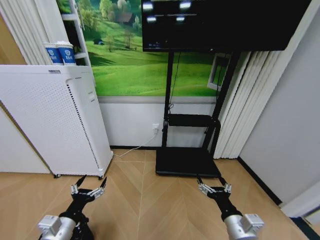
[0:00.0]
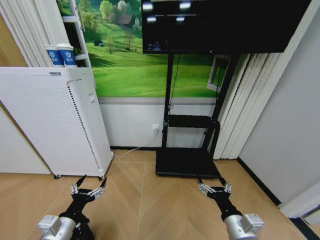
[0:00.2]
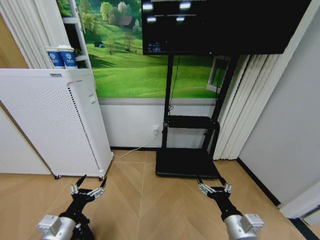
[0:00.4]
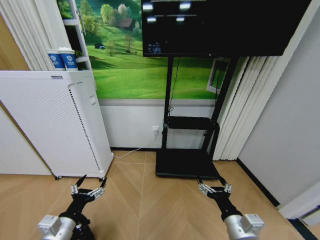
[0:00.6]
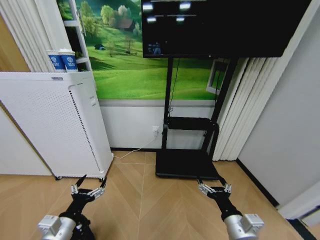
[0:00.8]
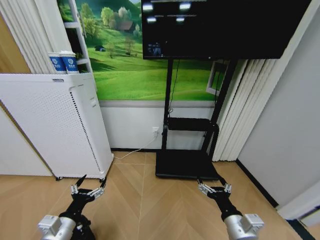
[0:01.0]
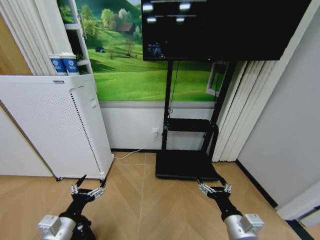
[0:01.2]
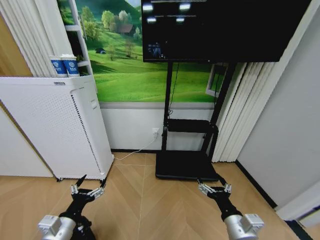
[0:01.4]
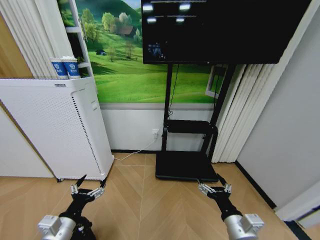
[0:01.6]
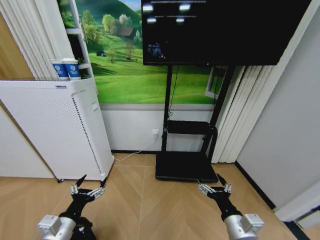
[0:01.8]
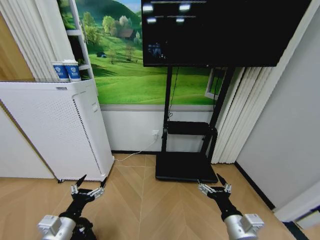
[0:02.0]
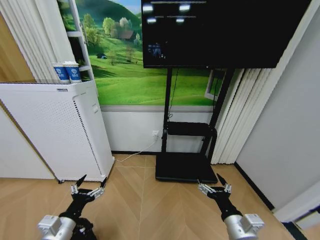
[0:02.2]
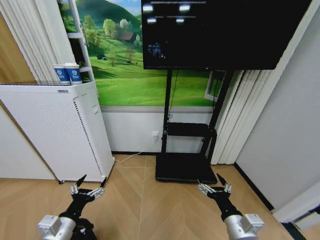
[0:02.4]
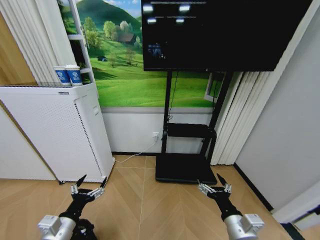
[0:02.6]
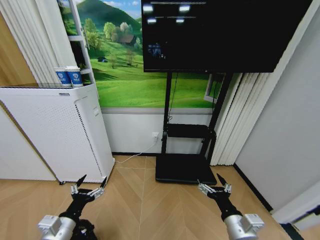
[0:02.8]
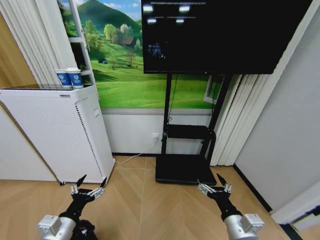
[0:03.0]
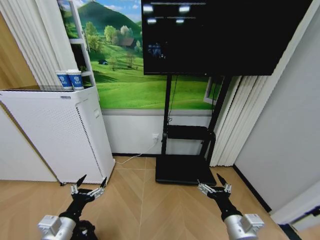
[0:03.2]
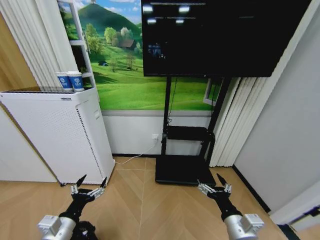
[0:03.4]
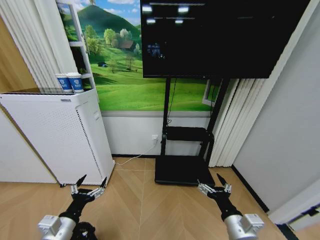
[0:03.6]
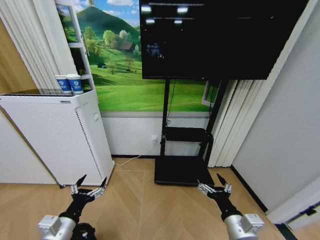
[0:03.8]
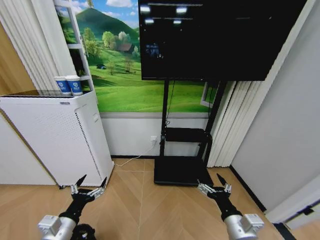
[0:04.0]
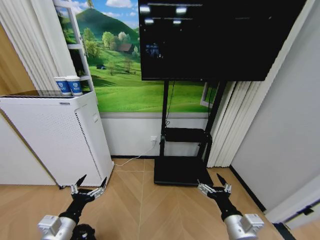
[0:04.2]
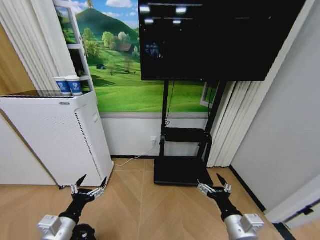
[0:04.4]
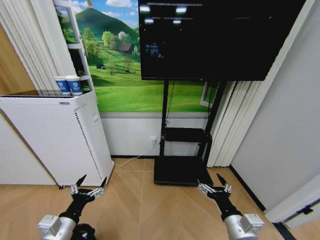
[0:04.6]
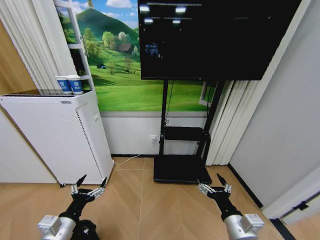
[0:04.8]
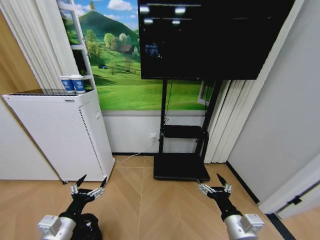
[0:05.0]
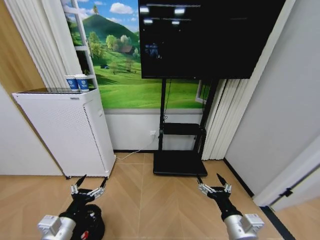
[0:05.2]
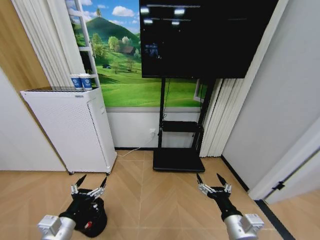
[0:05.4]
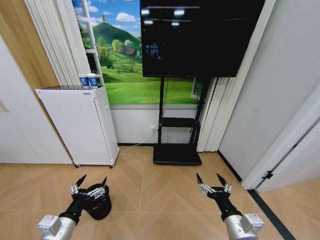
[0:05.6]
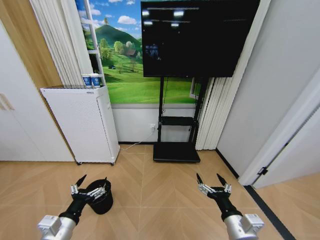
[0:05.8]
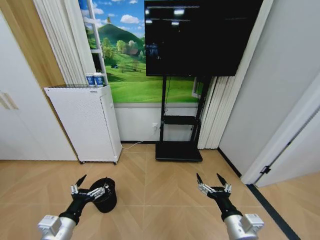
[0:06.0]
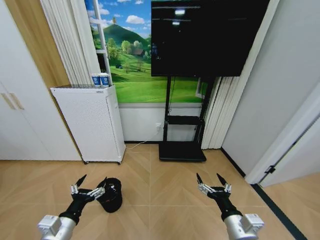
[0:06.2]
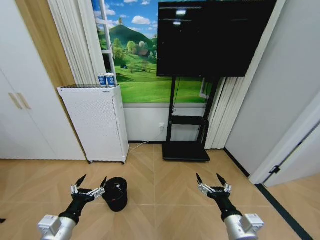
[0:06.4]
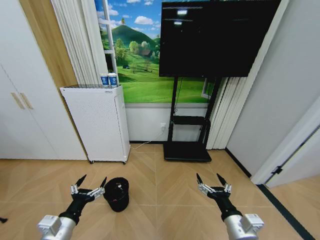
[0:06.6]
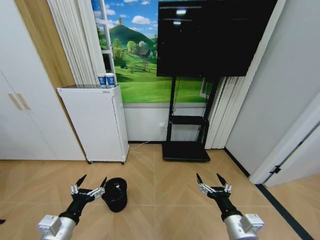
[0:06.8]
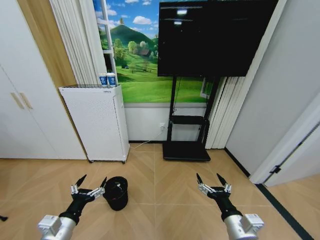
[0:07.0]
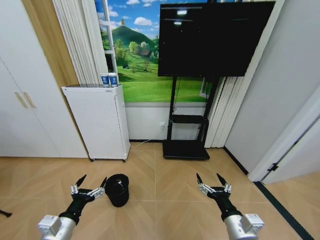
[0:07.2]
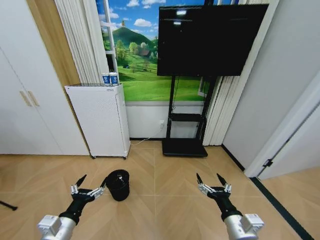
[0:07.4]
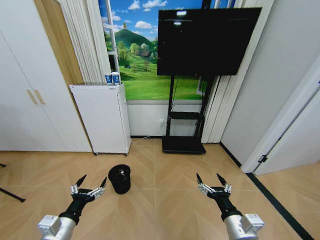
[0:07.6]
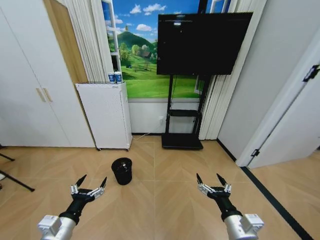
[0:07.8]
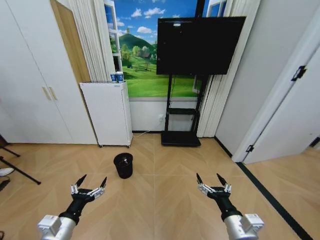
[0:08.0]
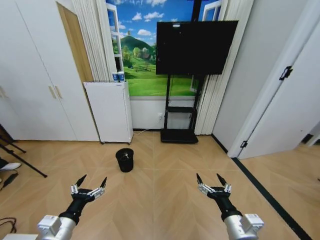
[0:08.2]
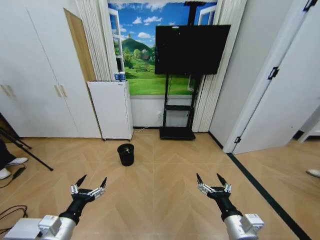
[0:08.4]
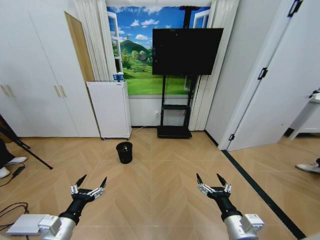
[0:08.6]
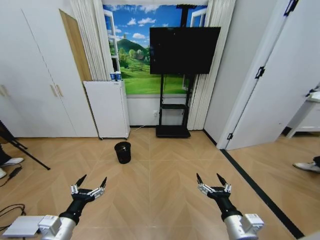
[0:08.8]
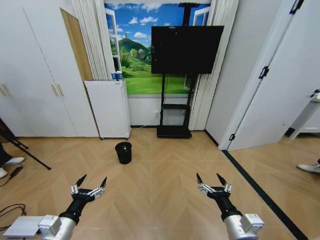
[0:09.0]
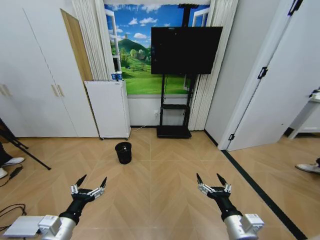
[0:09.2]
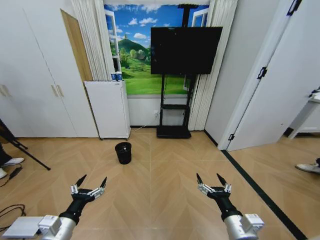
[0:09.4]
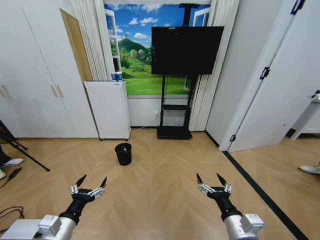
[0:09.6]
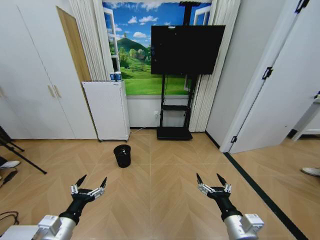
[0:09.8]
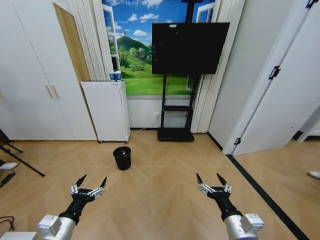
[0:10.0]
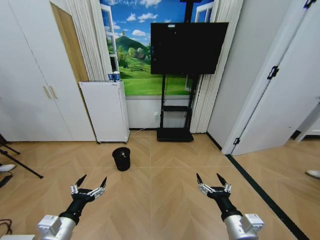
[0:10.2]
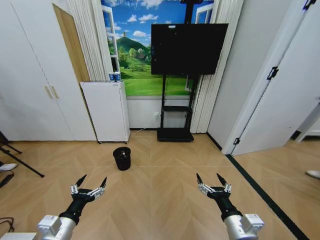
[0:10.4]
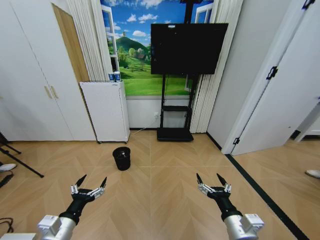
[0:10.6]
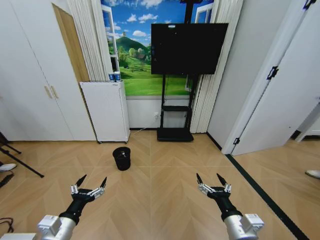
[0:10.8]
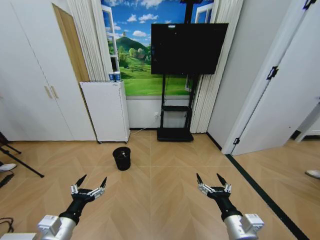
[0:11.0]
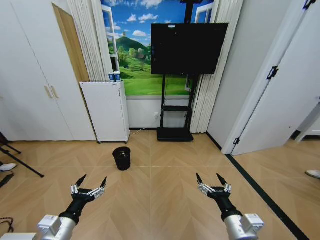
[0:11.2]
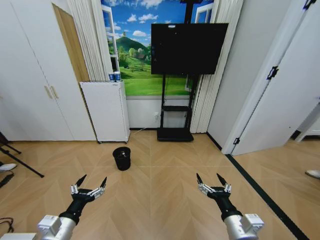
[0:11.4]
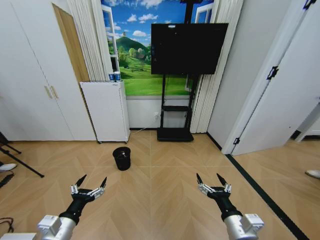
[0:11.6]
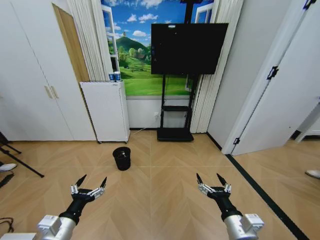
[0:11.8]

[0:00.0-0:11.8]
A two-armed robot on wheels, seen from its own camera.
Task of the whole recording: Pick up the trash bin and place the garbage on the floor into it.
0:00.0 to 0:03.0: The two grippers keep their place.
0:08.8 to 0:11.8: The two grippers keep their place.

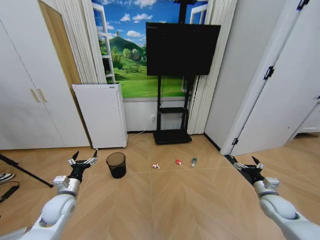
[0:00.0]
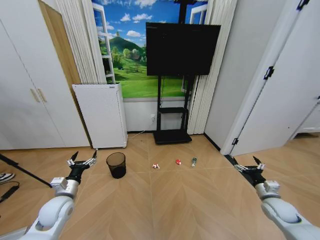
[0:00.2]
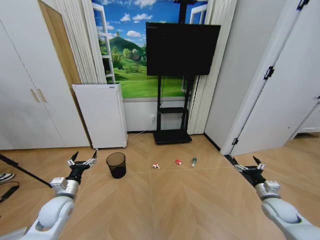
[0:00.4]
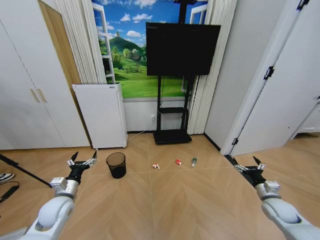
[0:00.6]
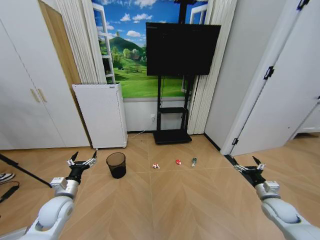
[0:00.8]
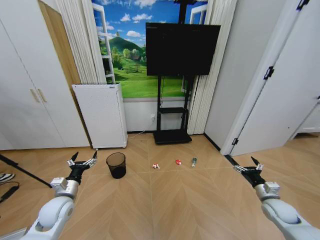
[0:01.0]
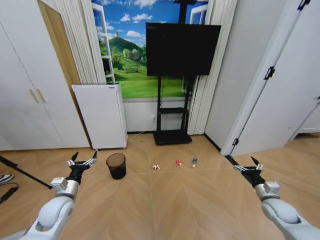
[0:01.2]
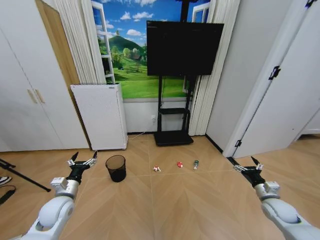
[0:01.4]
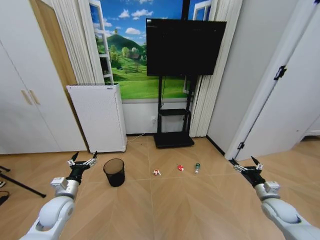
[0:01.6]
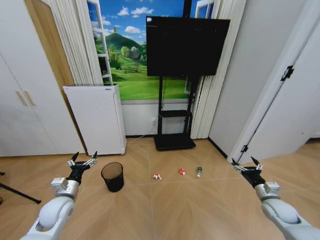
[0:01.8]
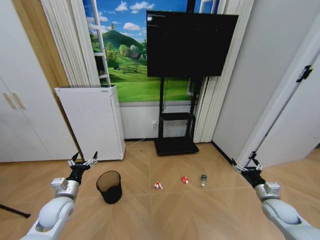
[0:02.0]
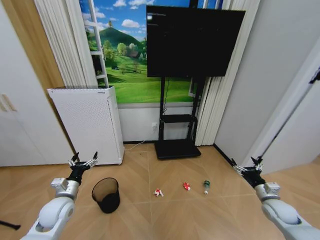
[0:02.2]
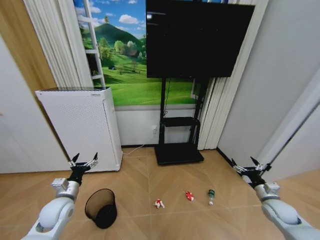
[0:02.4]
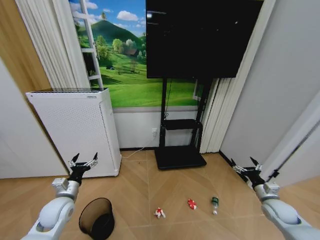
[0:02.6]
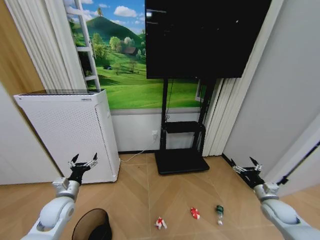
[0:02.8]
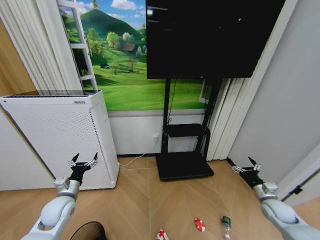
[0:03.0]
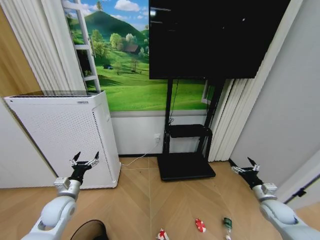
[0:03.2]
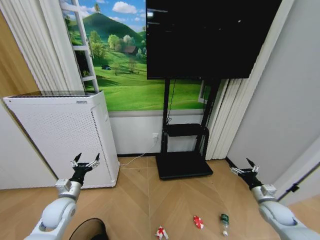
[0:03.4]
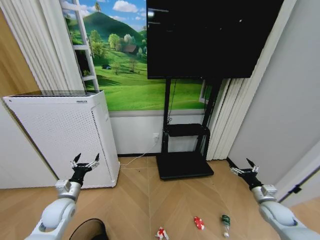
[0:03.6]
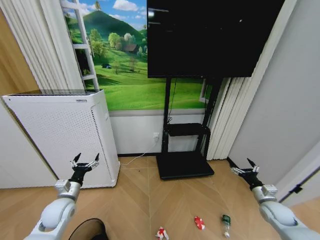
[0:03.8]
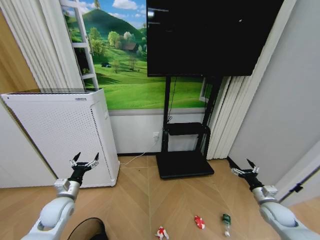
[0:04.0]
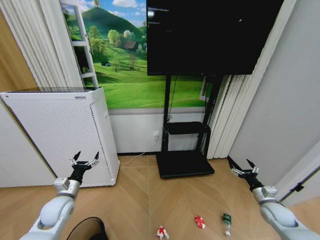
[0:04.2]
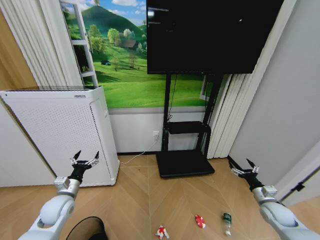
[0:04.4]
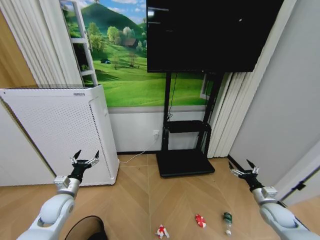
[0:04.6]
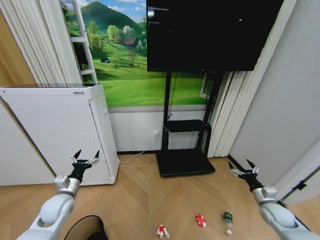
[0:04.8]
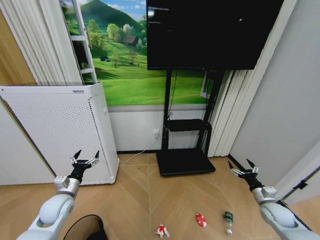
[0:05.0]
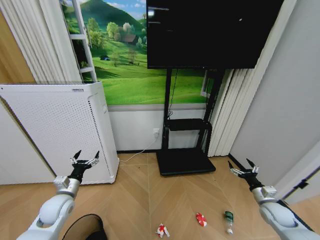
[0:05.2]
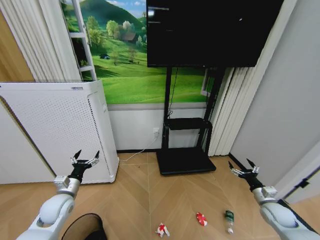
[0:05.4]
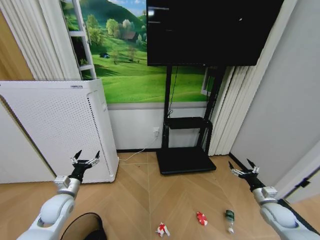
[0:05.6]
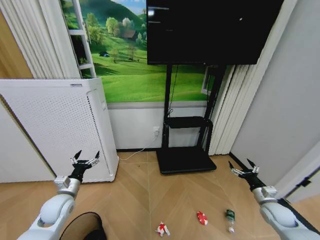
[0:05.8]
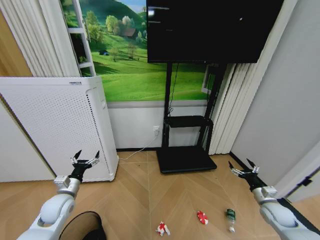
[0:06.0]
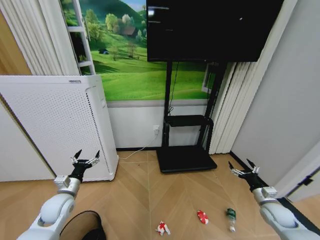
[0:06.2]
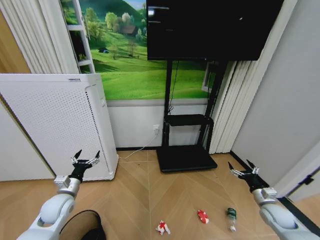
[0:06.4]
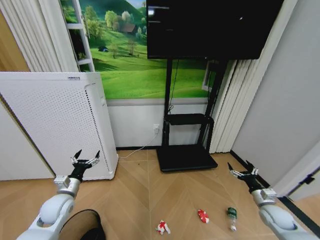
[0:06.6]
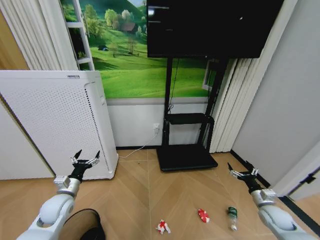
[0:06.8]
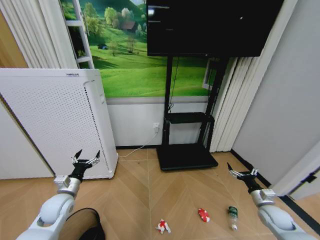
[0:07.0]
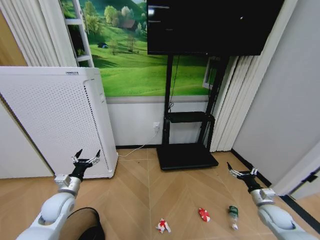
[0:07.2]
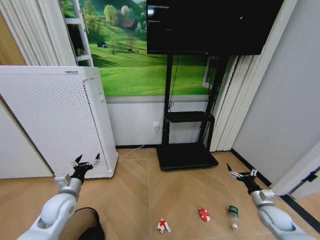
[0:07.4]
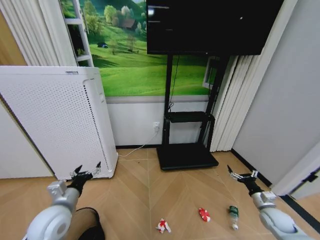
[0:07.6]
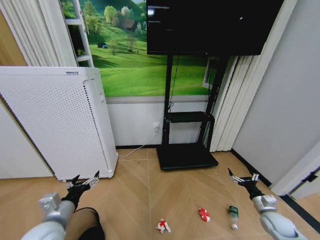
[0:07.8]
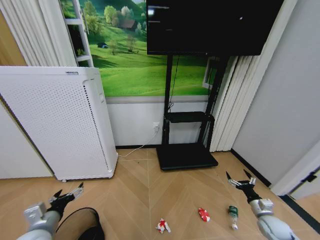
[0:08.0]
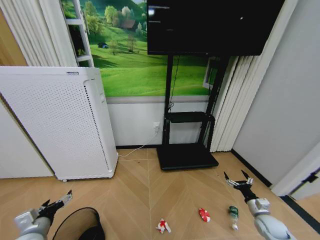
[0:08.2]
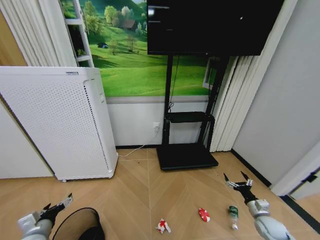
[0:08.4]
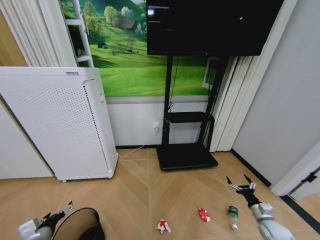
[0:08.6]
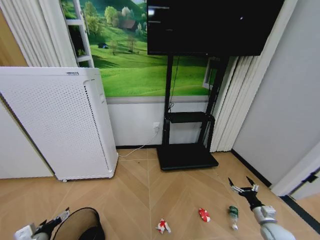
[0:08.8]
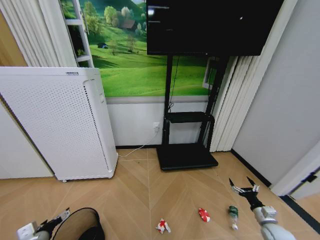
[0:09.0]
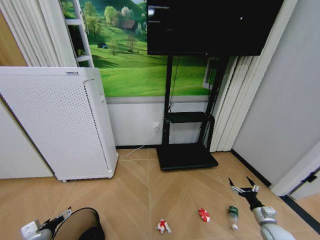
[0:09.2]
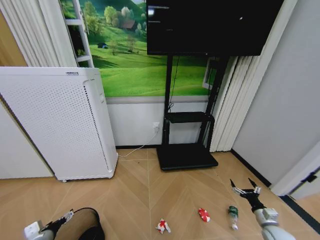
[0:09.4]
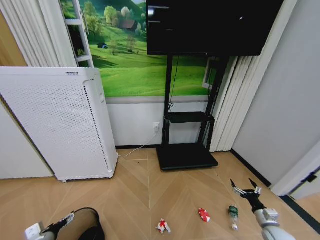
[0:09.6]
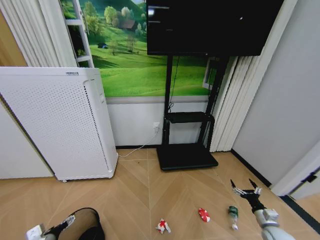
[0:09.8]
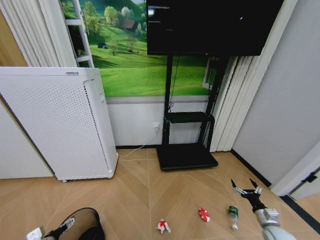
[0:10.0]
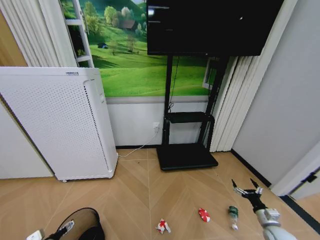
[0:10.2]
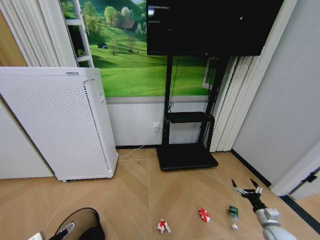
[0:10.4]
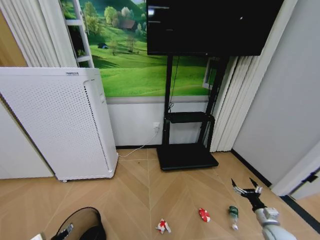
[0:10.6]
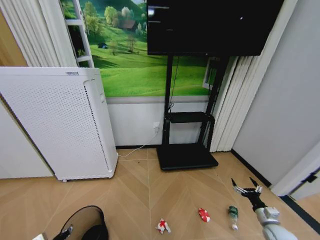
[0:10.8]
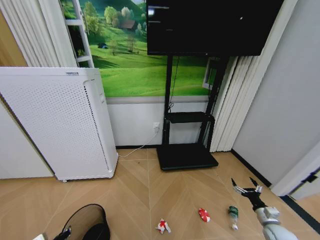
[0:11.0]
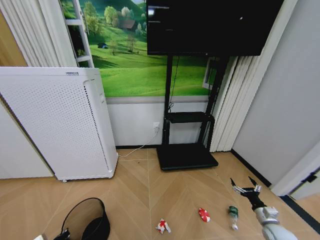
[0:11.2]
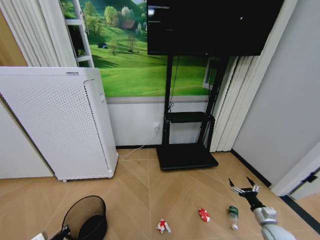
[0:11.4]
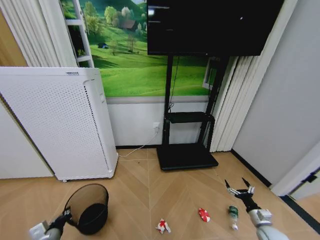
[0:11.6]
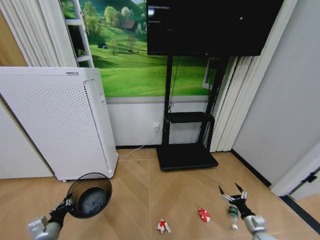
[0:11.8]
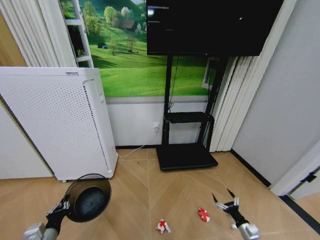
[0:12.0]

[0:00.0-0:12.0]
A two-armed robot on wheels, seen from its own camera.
Task of the whole recording: Pick up the trash bin and place the garbage on the floor into it.
0:03.0 to 0:04.4: The grippers make only small movements.
0:04.4 to 0:06.0: Neither gripper changes place.
0:06.0 to 0:07.6: The left gripper is displaced backward, upward and to the right by some 10 cm.
0:07.6 to 0:09.0: The left gripper travels downward, to the left and backward by some 20 cm. The right gripper travels downward by some 5 cm.
0:09.0 to 0:10.4: The left gripper heads downward, covering about 5 cm.
0:10.4 to 0:12.0: The right gripper shifts roughly 10 cm downward and to the left; the left gripper goes approximately 5 cm upward, and closes up.
